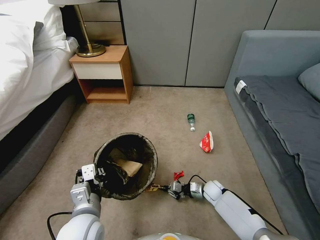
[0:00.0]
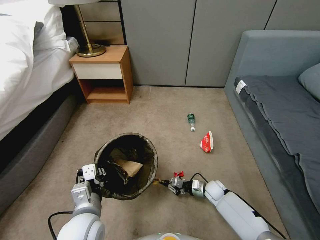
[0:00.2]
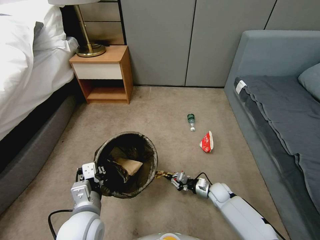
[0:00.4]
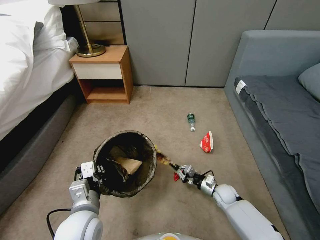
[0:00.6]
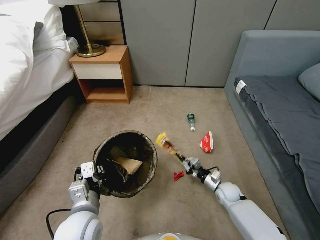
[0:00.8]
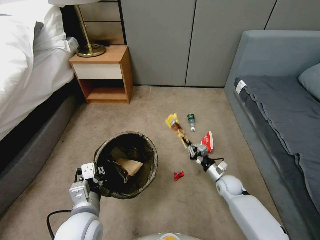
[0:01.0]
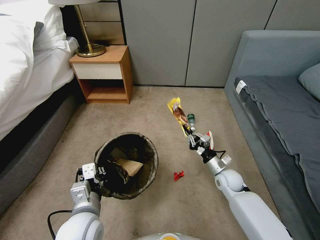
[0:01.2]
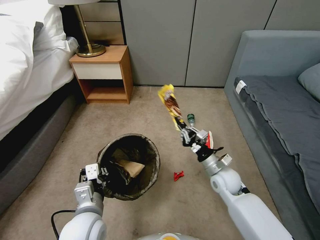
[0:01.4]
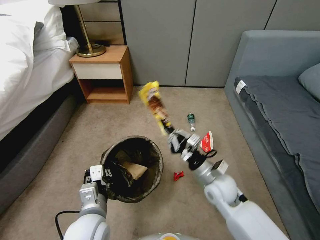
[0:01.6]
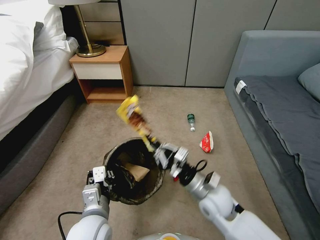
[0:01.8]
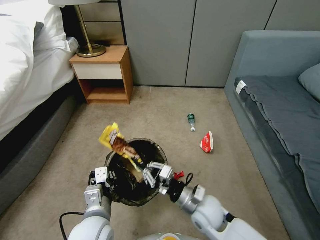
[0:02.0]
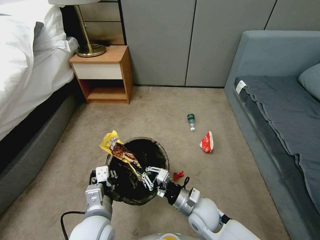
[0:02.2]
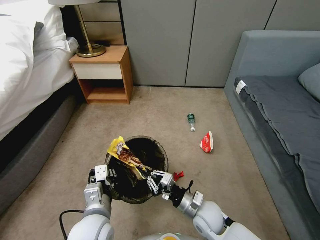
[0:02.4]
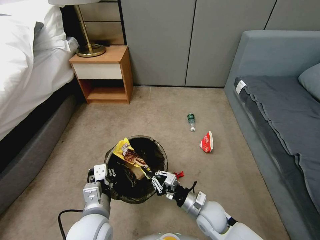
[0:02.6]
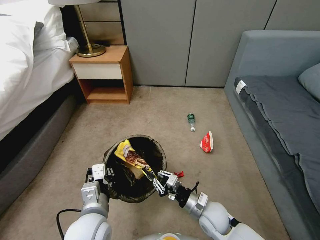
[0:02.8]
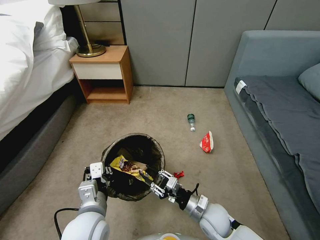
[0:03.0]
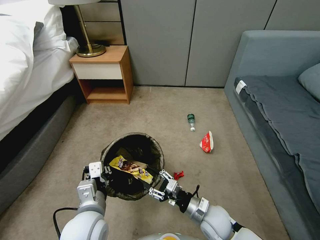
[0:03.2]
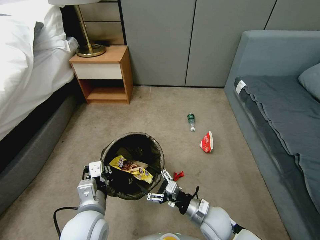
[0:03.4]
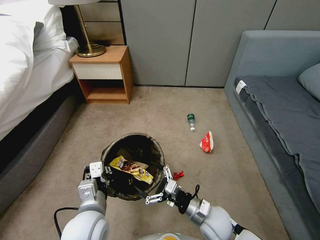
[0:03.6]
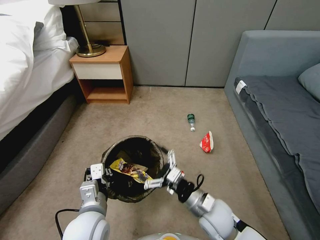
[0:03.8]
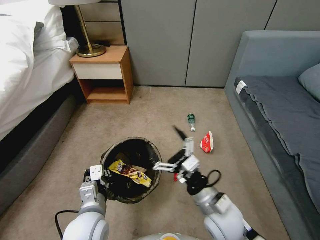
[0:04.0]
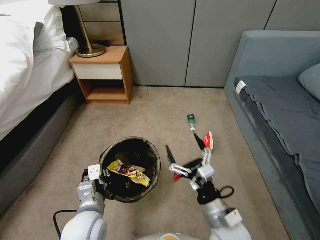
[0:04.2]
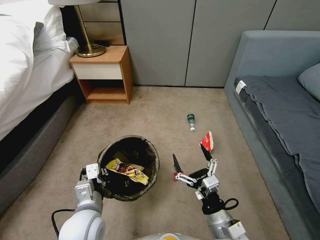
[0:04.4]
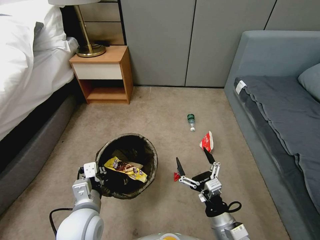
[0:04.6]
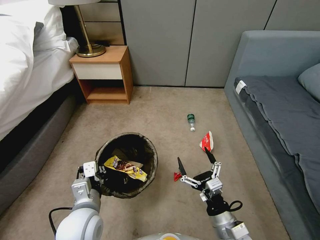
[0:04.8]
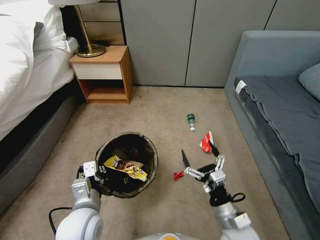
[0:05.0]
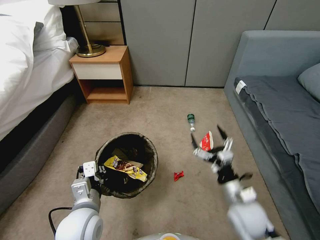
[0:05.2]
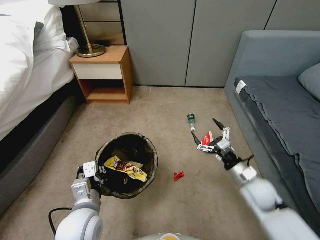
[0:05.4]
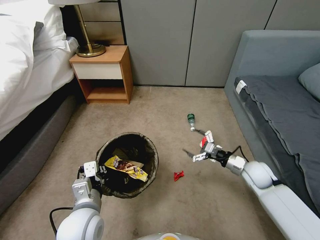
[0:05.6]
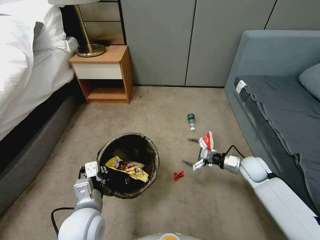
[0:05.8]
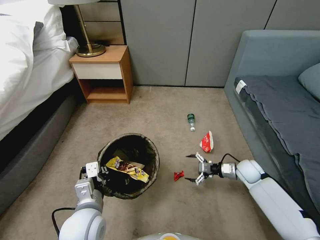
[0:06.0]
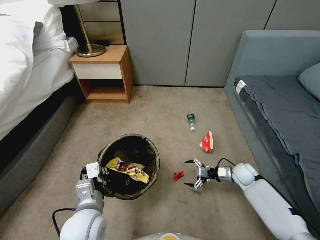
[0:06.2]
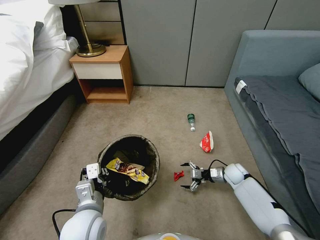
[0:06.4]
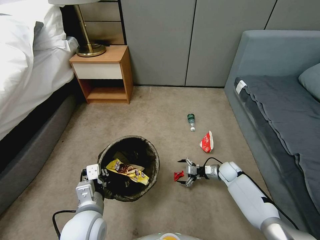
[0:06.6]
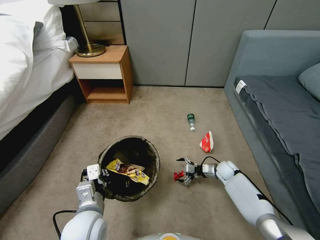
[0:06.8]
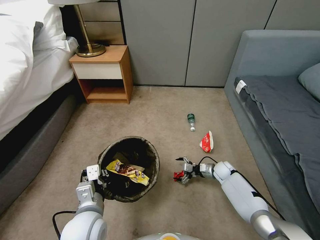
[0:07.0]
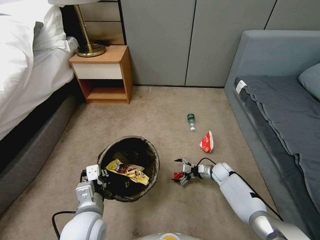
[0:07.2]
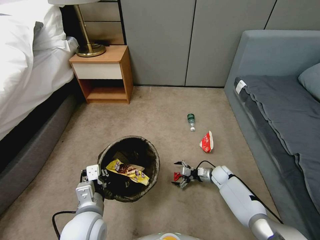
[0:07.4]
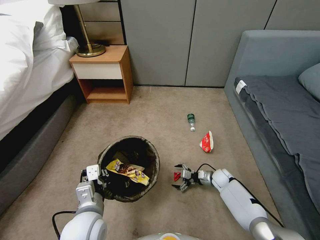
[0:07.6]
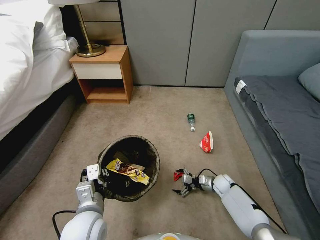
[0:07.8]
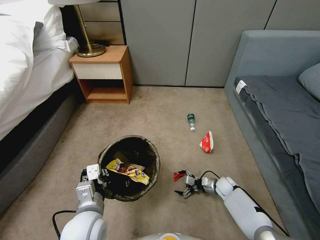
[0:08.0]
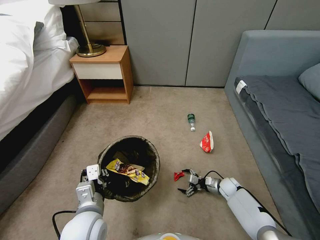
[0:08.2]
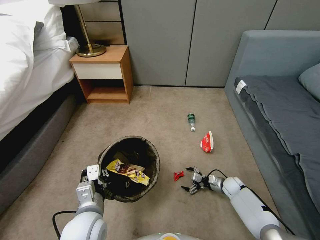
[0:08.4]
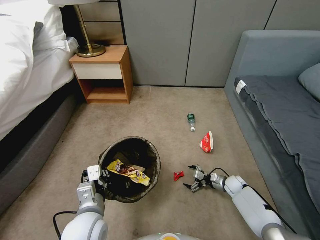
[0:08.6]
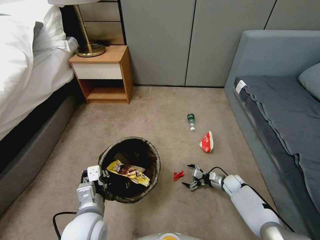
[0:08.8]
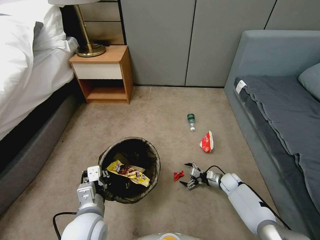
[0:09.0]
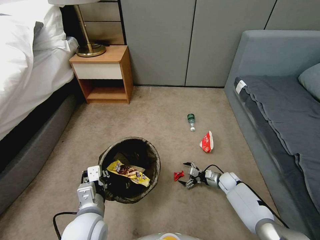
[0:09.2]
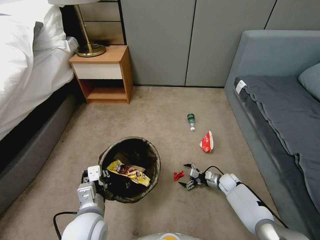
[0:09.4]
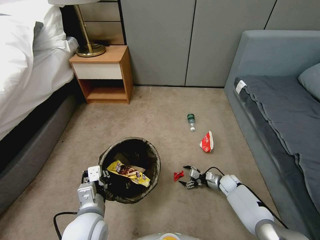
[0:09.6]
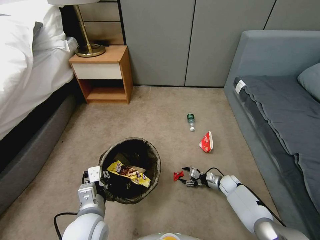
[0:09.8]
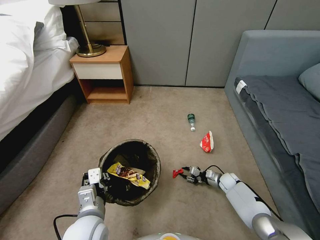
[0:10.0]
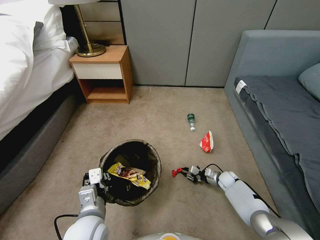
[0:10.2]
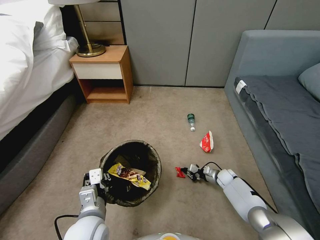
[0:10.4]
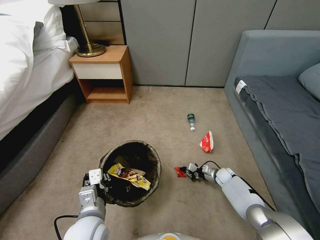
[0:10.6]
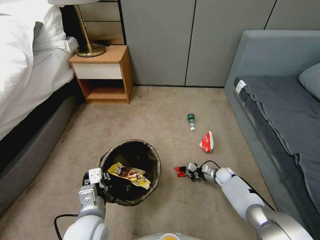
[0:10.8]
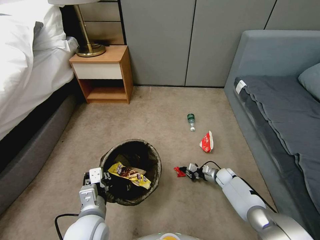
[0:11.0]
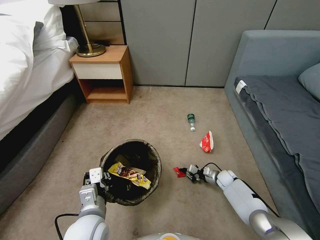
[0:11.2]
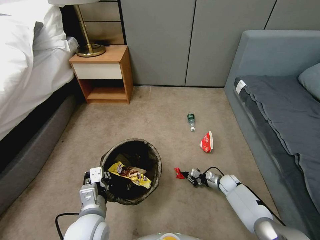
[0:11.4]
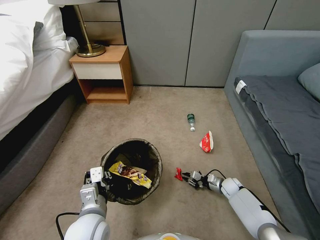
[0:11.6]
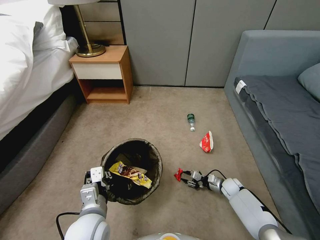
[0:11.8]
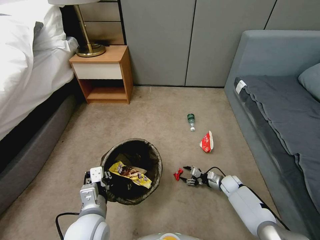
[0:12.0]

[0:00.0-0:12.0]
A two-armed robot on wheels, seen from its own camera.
Task of the whole recording: Pick up the trash bin, then pick up the garbage from the floor and place it into the trash bin.
0:00.0 to 0:01.6: The right gripper moves upward, about 25 cm.
0:01.6 to 0:03.0: The right gripper shifts about 10 cm downward and backward.
0:03.0 to 0:04.4: The right gripper goes approximately 10 cm backward and upward, and opens.
0:04.4 to 0:06.0: The right gripper shifts roughly 30 cm forward and to the right.
0:06.0 to 0:07.6: The right gripper travels downward and to the left by roughly 15 cm.
0:09.0 to 0:10.4: The right gripper closes its fingers.
0:10.4 to 0:12.0: The right gripper opens.

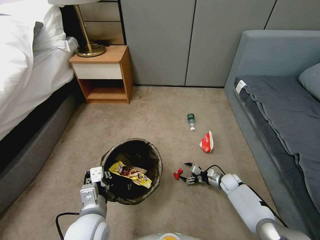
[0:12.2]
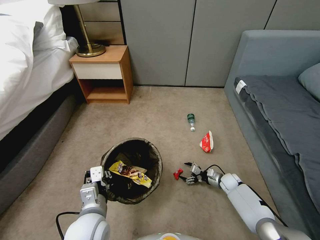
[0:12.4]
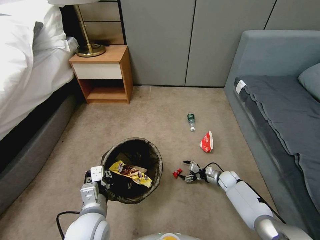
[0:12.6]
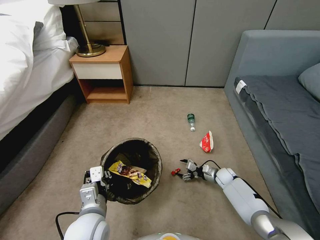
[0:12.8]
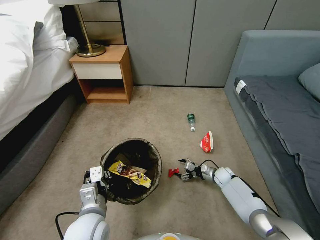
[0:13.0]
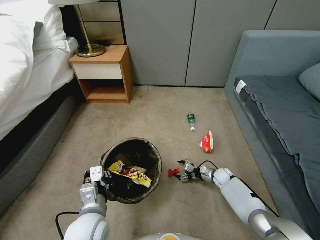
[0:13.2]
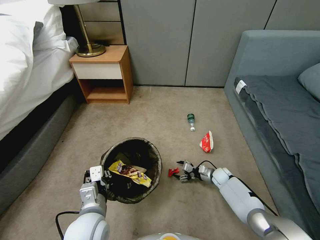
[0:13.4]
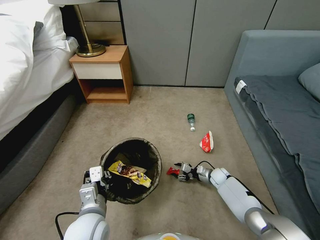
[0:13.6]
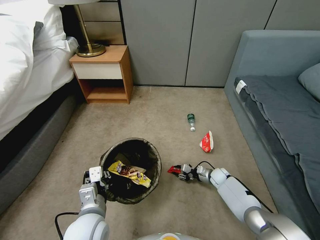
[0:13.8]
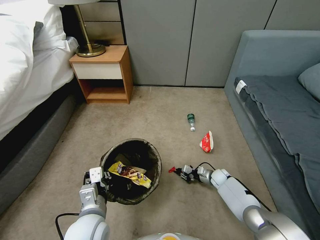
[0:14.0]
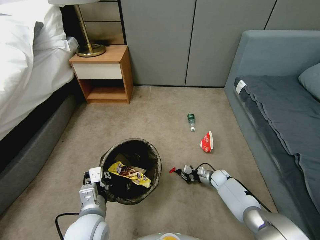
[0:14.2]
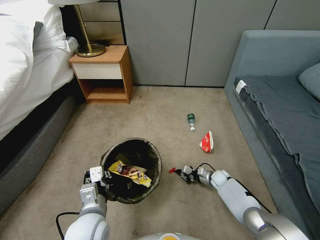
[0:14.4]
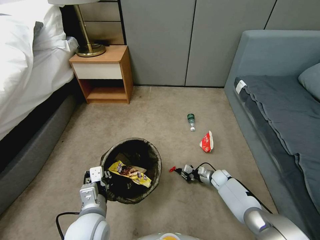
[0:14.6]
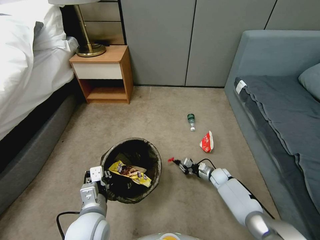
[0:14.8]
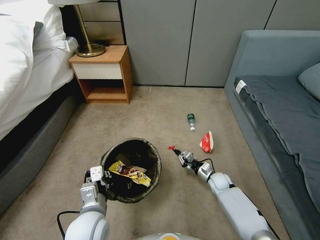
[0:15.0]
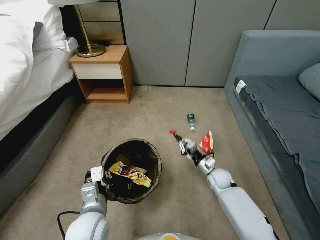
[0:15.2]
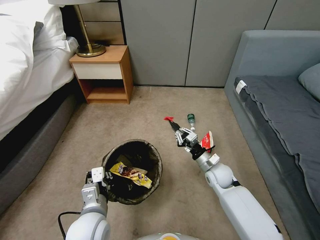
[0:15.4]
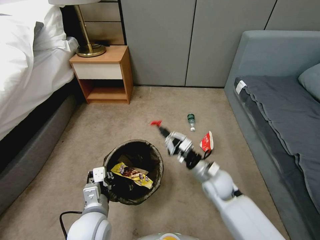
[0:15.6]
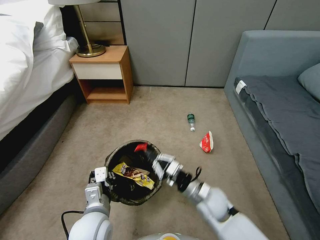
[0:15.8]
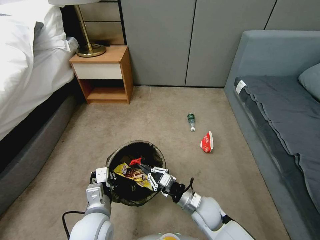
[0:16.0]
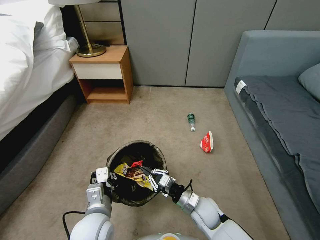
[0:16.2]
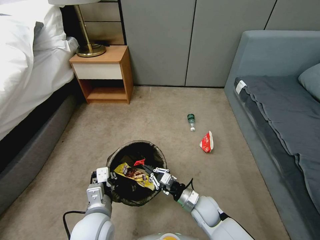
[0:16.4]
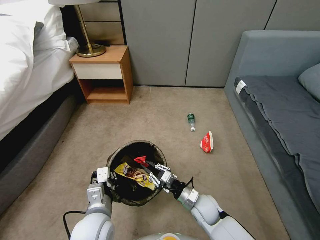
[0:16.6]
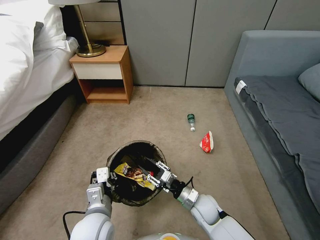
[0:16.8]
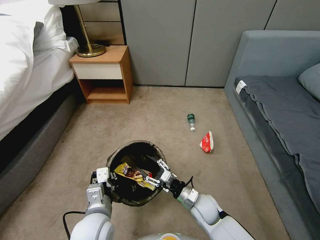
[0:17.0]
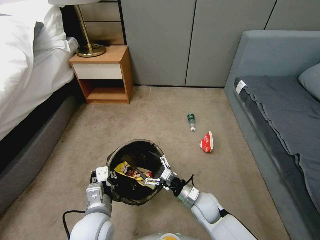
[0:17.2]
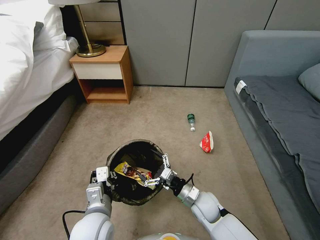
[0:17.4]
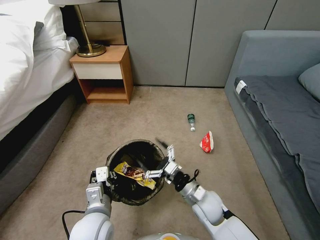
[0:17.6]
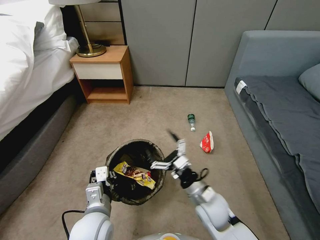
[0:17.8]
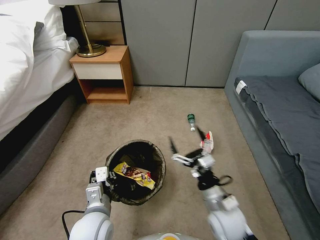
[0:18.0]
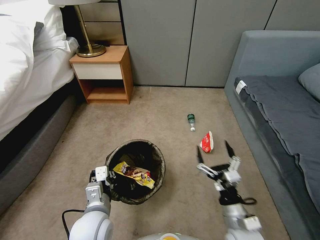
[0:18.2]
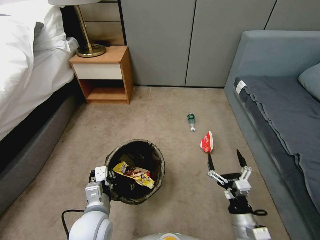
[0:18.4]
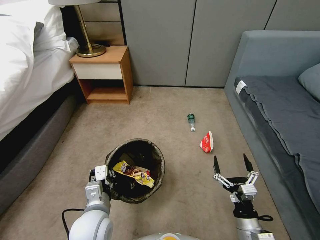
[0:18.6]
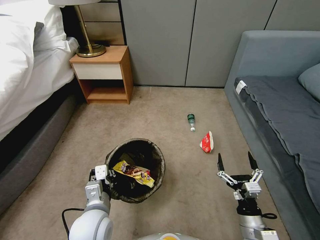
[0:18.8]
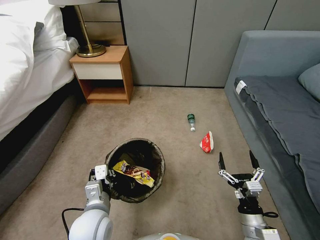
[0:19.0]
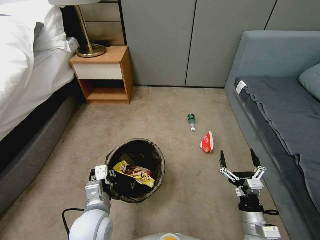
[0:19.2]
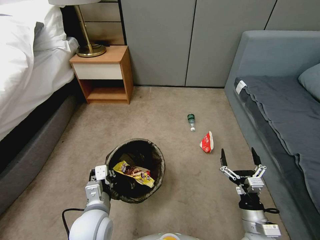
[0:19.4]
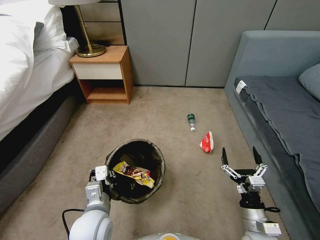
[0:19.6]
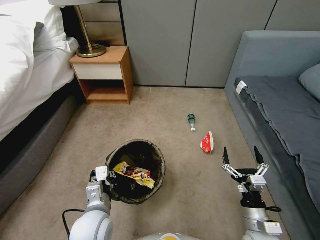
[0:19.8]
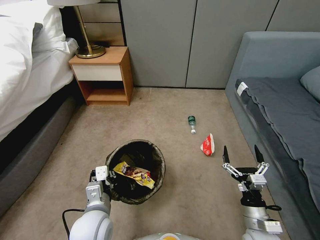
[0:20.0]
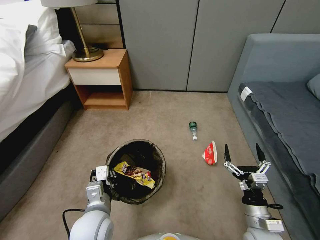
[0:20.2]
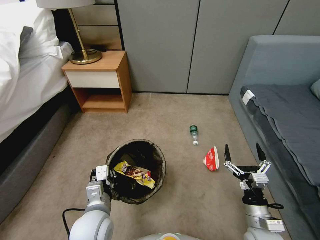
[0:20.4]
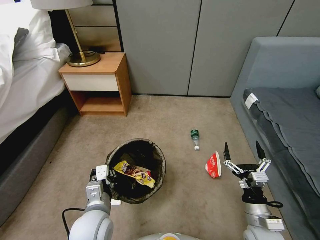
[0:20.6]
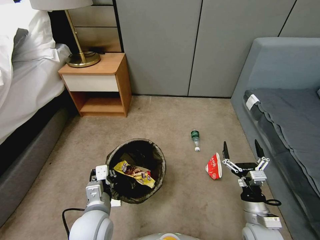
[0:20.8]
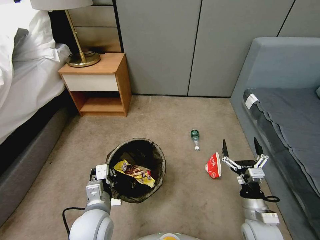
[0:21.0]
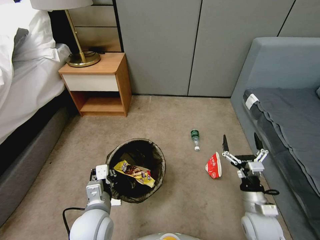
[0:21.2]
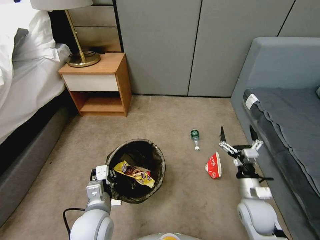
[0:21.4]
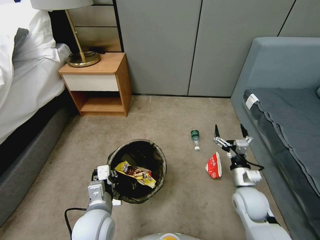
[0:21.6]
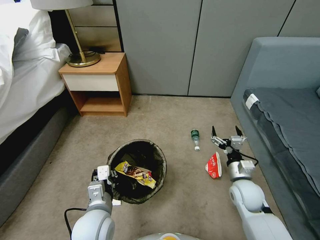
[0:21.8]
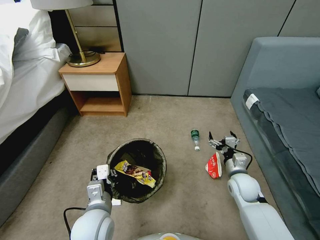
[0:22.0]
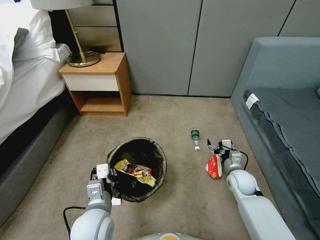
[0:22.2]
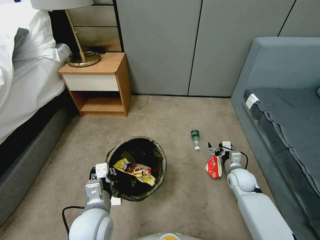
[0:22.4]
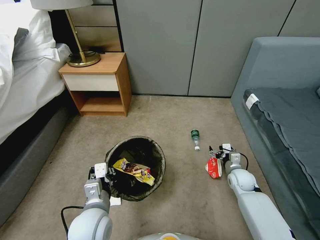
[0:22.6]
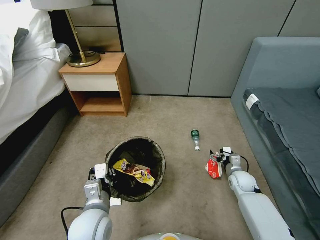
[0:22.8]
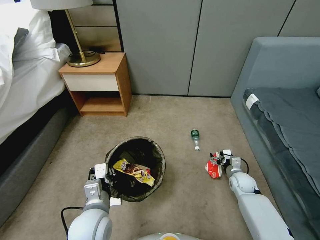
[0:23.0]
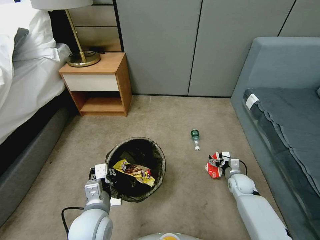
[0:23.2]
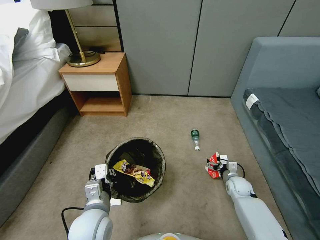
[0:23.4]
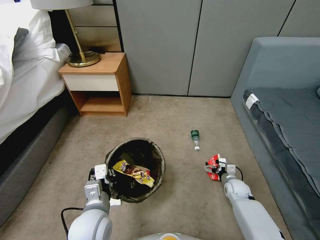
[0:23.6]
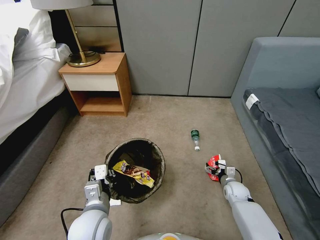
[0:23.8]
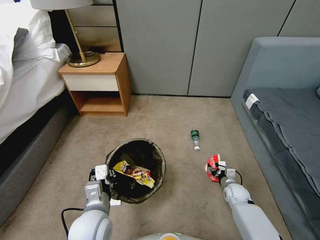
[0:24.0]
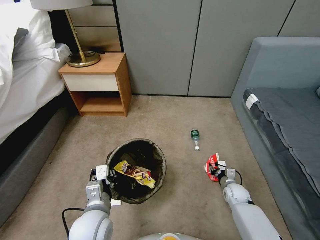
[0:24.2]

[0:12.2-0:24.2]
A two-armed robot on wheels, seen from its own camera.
Task of the whole recording: Pick up the trash bin, then pick up the garbage from the floor and place it into the trash bin.
0:12.2 to 0:13.8: The right gripper moves roughly 5 cm, and closes up.
0:13.8 to 0:15.2: The right gripper heads upward, covering some 10 cm.
0:15.2 to 0:16.6: The right gripper is displaced backward and to the left by some 15 cm.
0:16.6 to 0:18.2: The right gripper heads backward, upward and to the right, covering approximately 15 cm, and opens up.
0:18.2 to 0:19.8: The right gripper moves to the right, roughly 5 cm.
0:19.8 to 0:21.2: The right gripper goes approximately 5 cm forward.
0:21.2 to 0:22.6: The right gripper shifts some 15 cm forward and downward.
0:22.6 to 0:24.2: The right gripper moves downward, about 10 cm, and closes its fingers.
